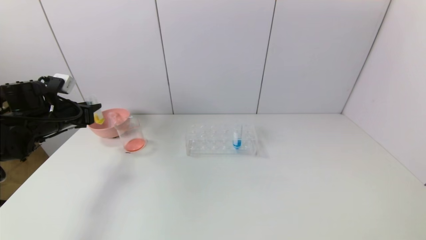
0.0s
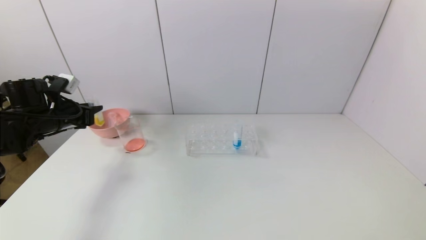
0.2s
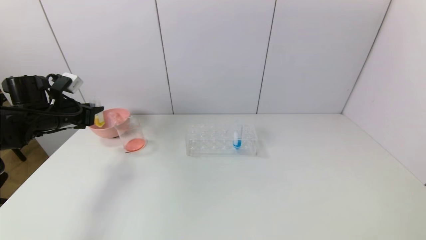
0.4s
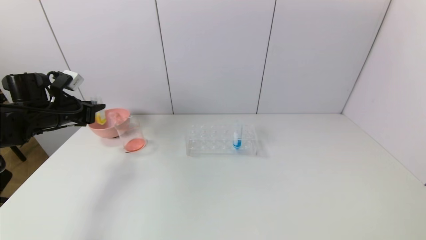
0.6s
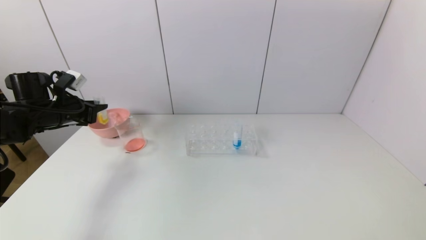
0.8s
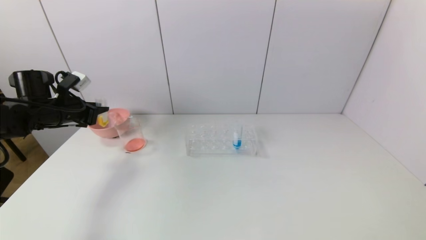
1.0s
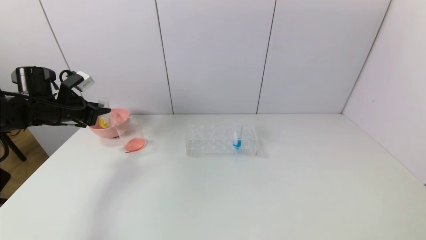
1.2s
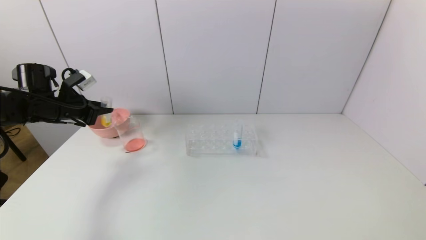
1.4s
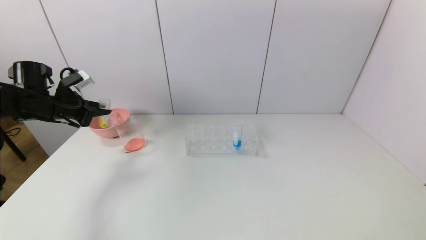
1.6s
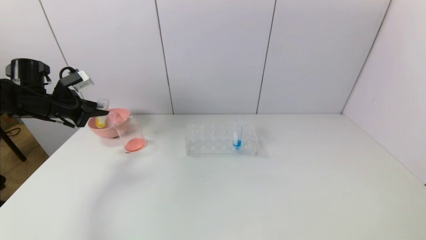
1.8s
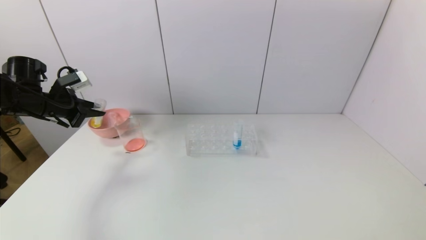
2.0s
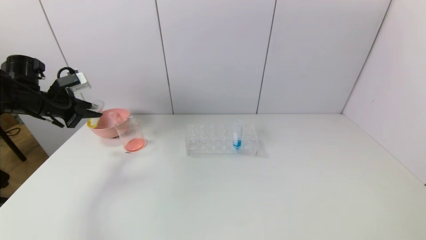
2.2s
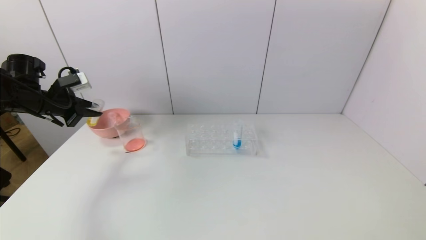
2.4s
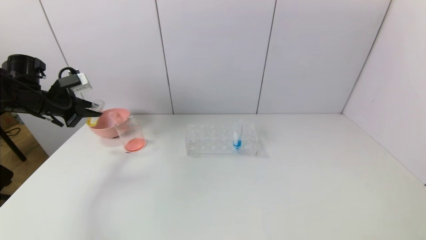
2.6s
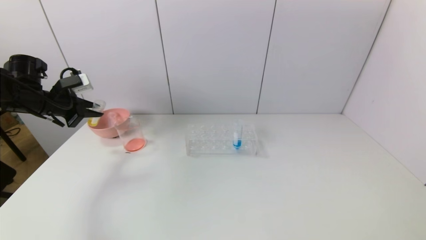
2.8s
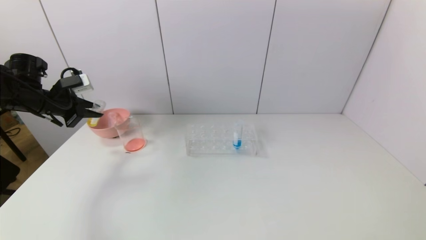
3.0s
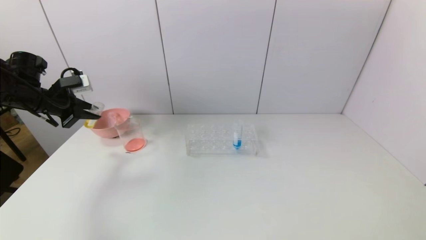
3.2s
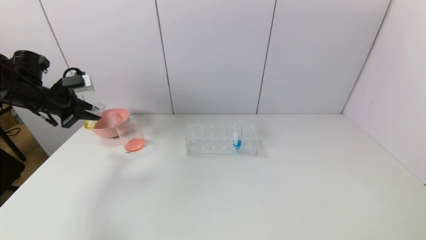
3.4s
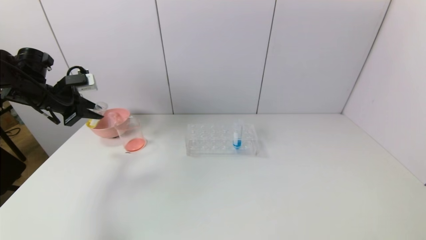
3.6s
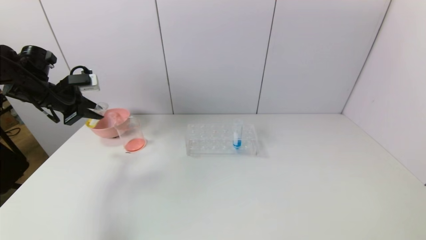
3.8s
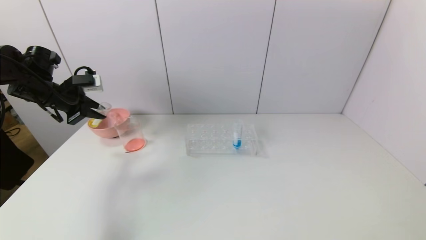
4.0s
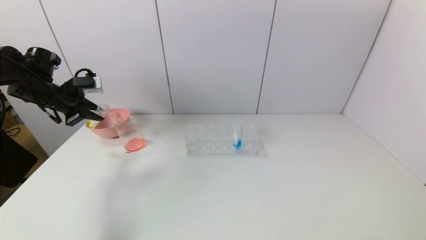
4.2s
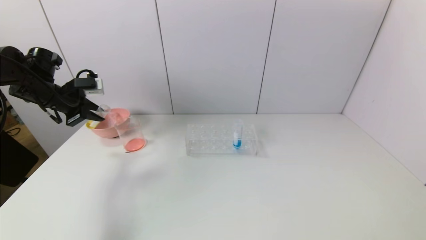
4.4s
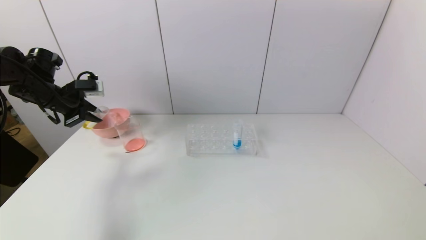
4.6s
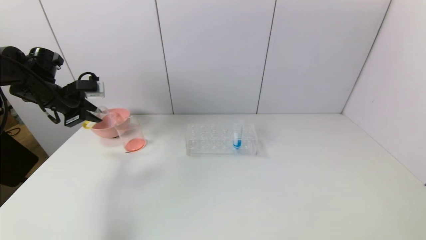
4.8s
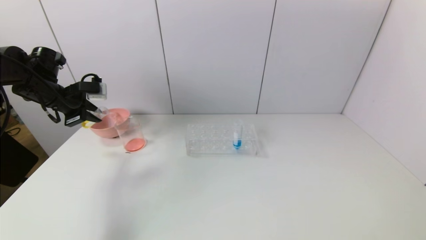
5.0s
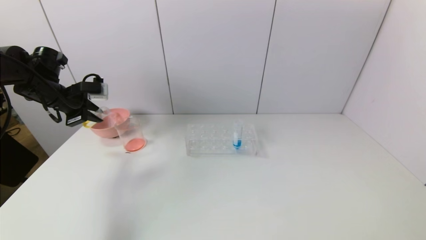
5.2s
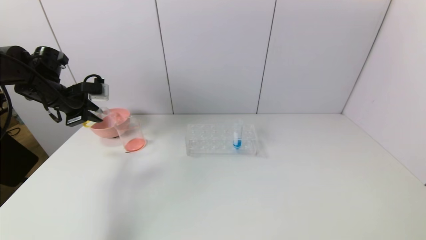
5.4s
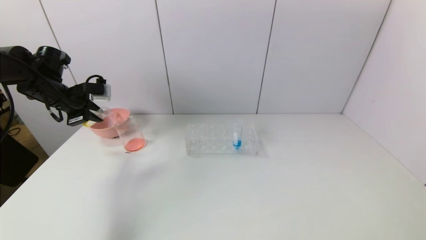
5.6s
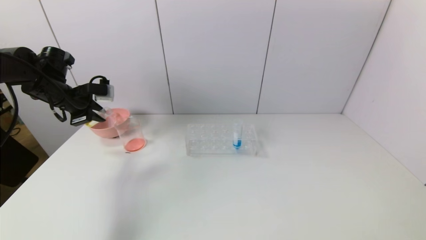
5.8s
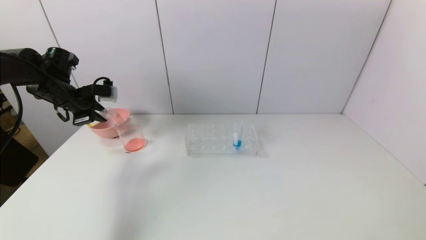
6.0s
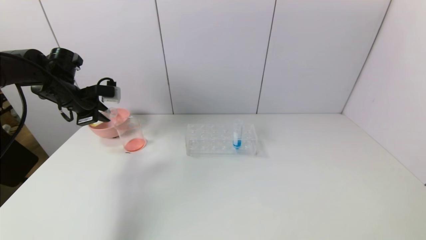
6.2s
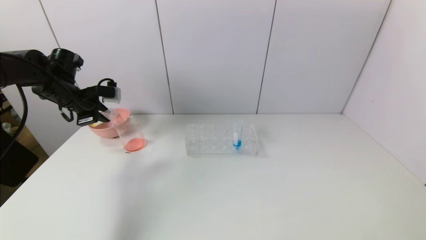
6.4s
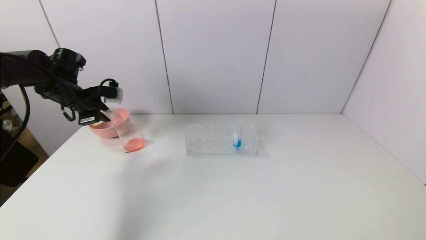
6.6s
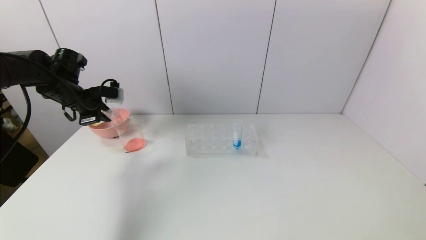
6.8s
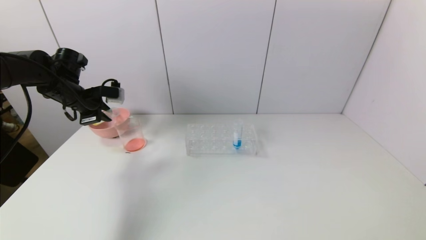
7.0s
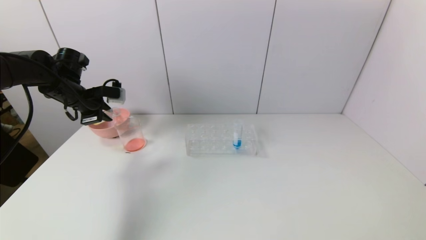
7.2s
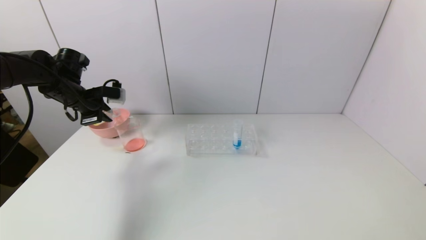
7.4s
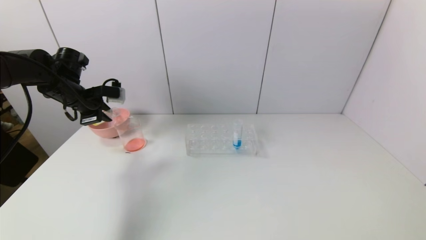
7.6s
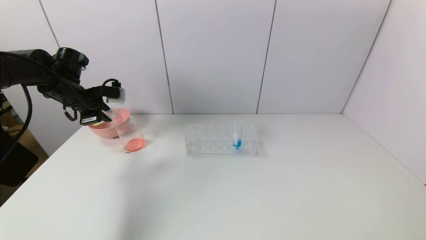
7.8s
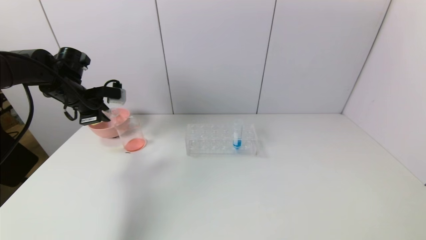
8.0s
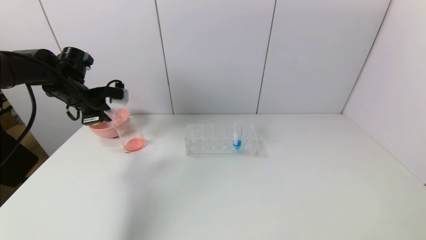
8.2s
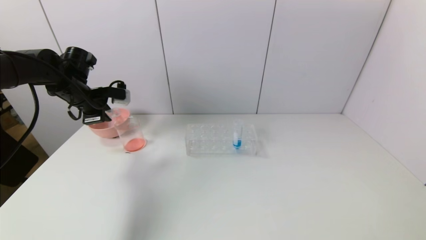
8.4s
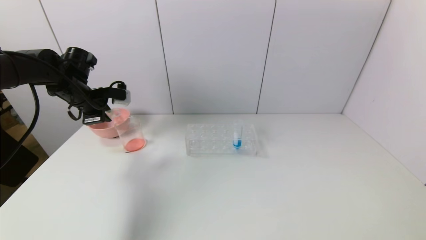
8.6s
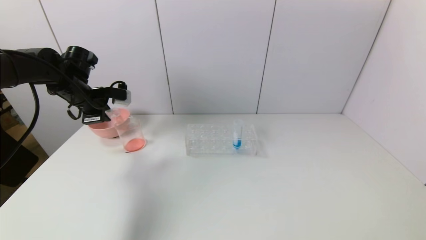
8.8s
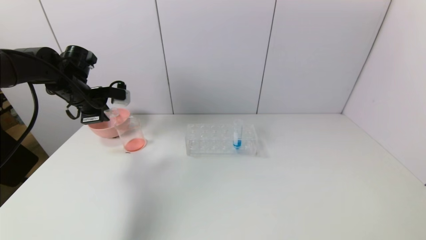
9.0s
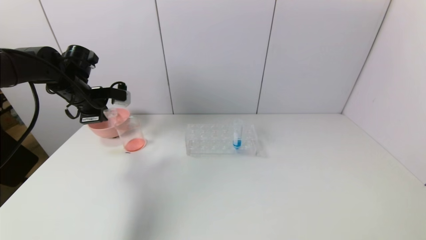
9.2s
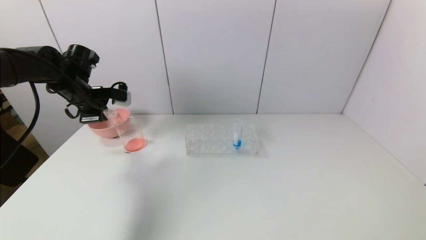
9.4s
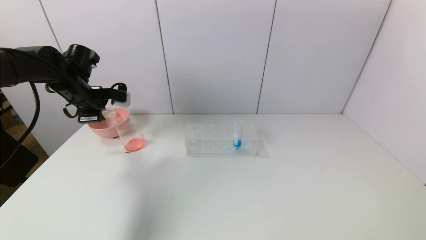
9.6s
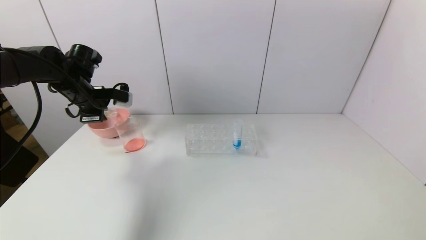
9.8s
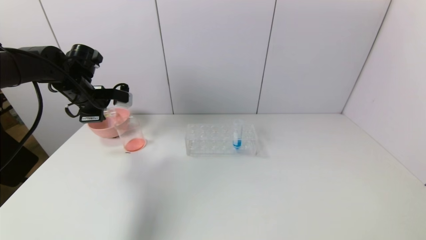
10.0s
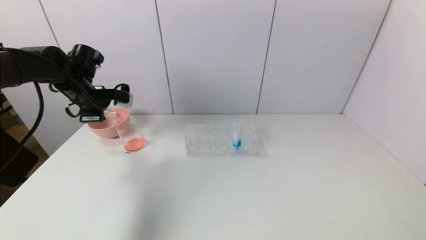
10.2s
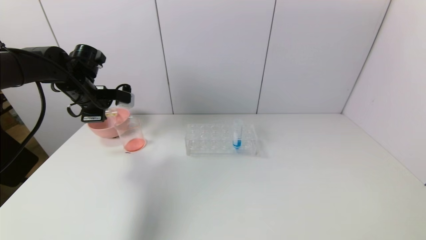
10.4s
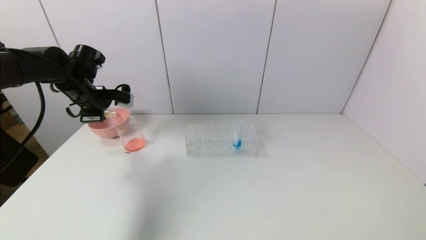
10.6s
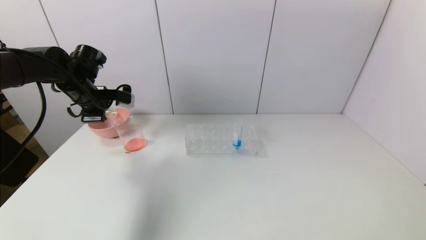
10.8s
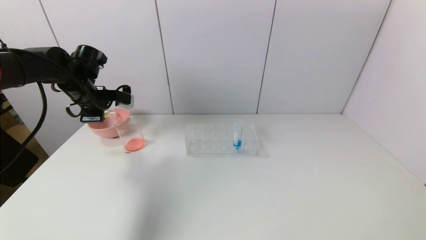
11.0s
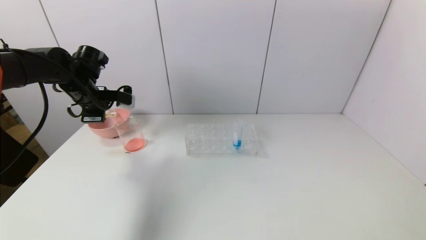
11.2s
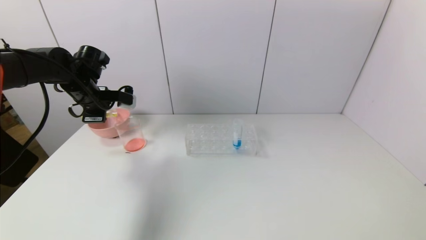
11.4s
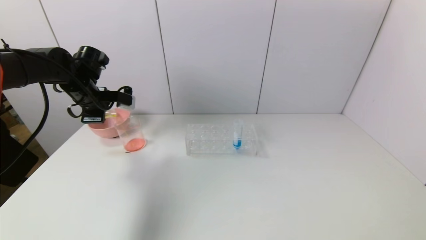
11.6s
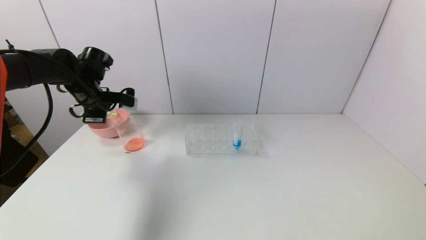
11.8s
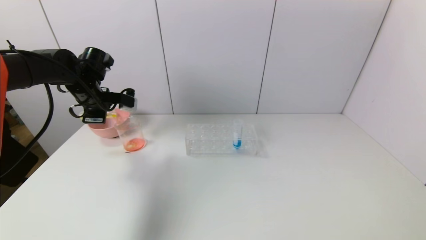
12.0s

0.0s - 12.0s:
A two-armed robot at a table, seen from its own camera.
Task of the whole recording: pick up the test tube with yellow pigment and the test tube with red pigment by grippers and pour them into the beaker.
1.6s - 3.0s: The grippers stay close to where they were, moving slightly.
3.0s - 4.4s: The grippers make only small movements.
4.4s - 7.6s: The grippers make only small movements.
7.6s - 10.4s: There are only small adjustments of the grippers.
10.4s - 12.0s: There are only small adjustments of the grippers.

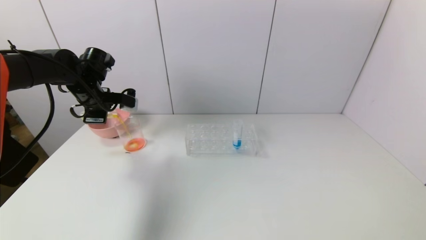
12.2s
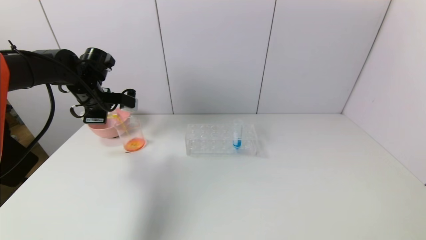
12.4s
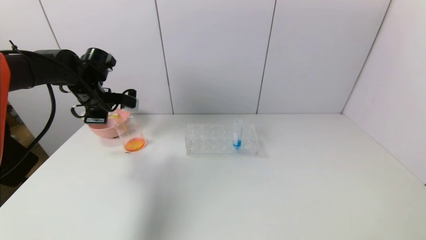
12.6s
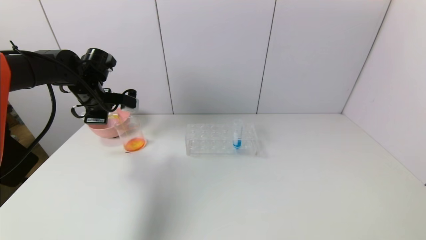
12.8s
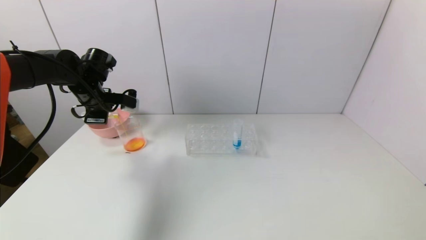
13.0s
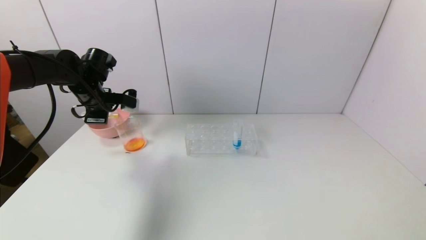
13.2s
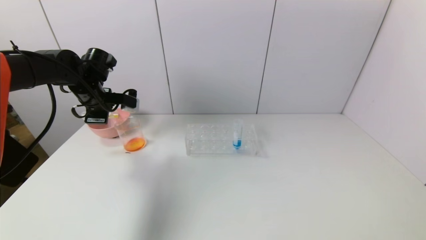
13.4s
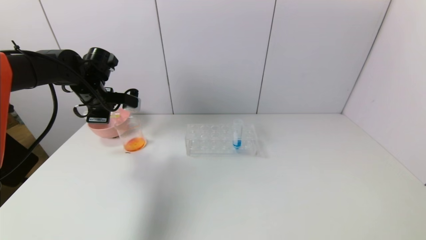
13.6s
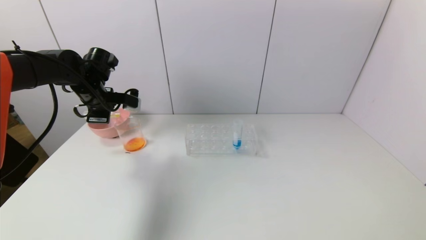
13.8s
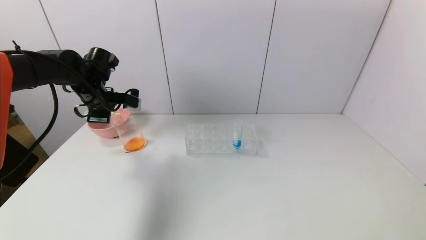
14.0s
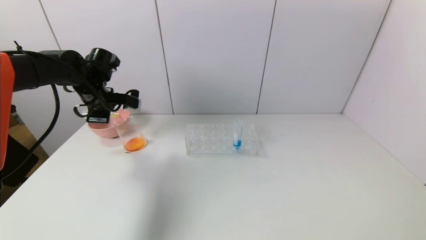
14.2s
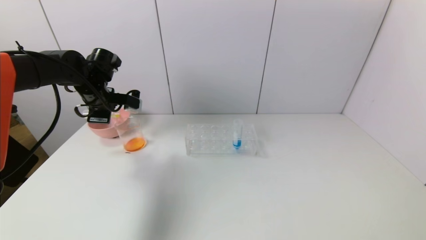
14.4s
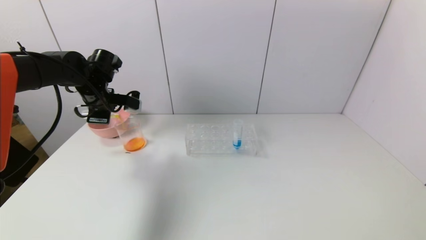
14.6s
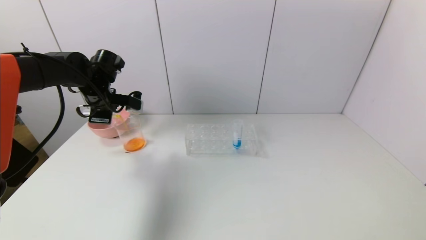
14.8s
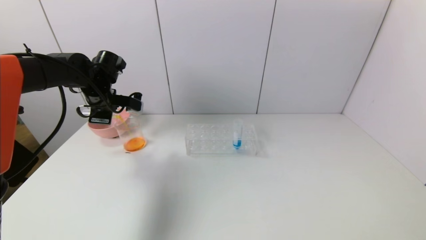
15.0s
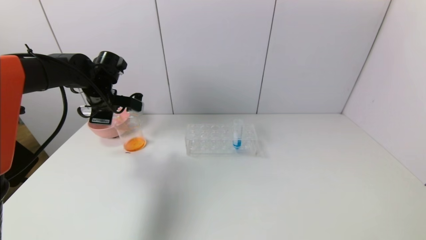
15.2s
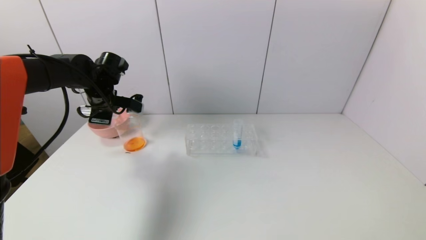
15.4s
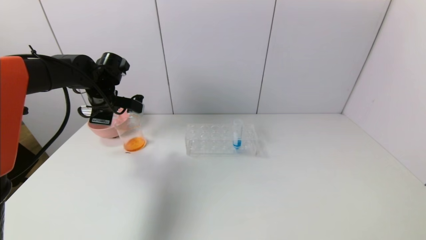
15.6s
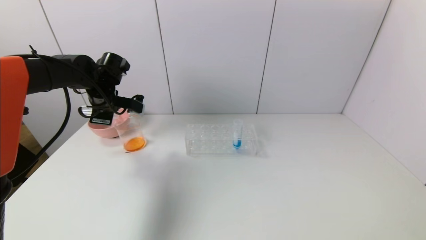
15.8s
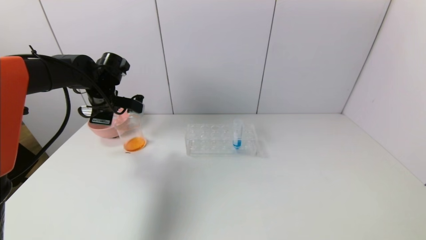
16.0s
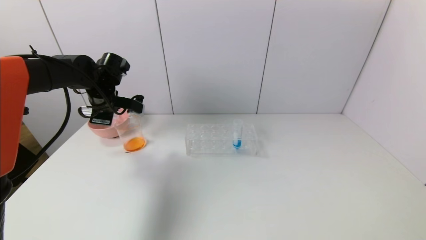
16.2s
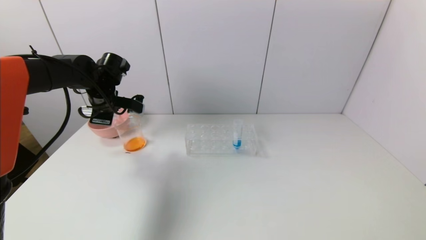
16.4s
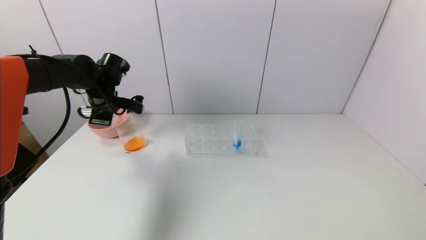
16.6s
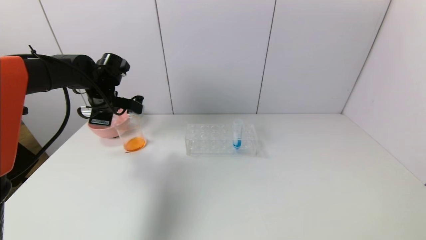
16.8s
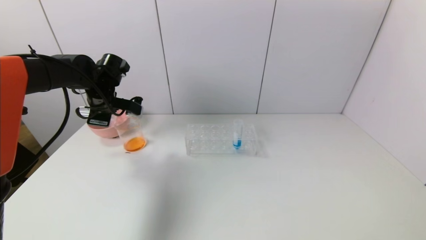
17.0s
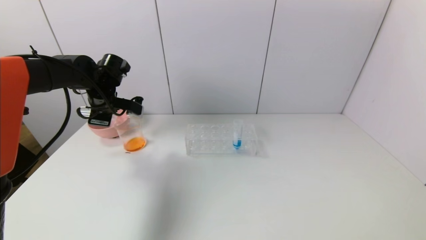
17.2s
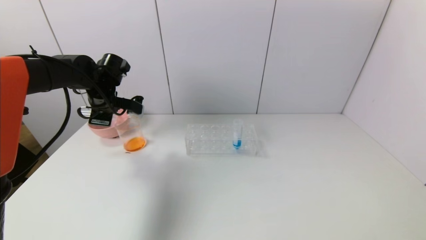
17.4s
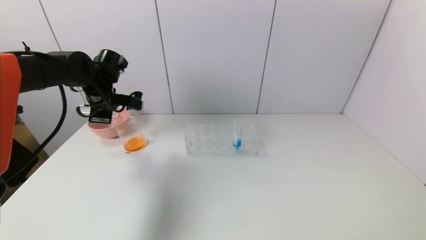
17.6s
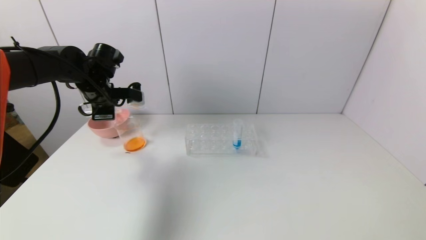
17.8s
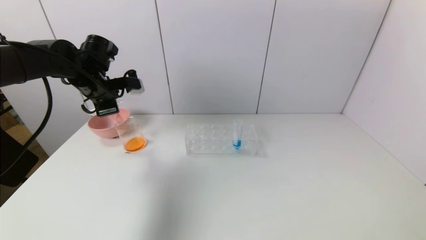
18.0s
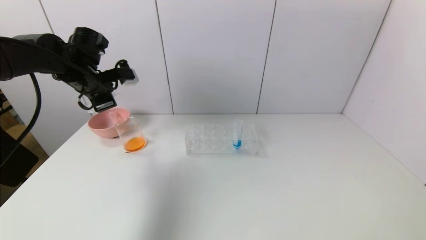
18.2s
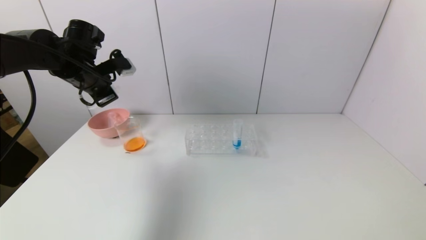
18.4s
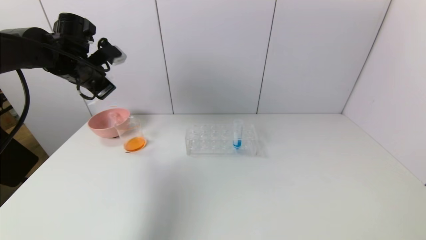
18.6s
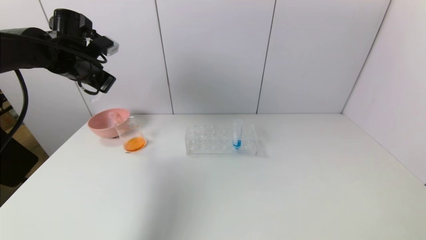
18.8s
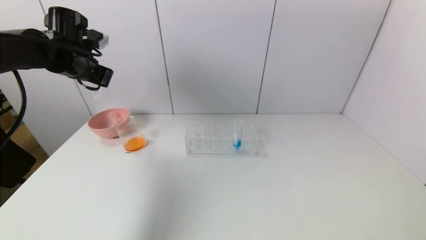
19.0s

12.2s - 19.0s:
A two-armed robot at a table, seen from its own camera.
Task of the whole recording: pick up the test tube with yellow pigment and the test tube with red pigment by grippers and pour them into the beaker.
Step, 12.2s - 16.2s: Pour the yellow reagent into the graduated cylinder with the left gripper.
12.2s - 13.6s: Neither gripper changes place.
13.6s - 15.0s: The grippers move only a little.
15.0s - 16.2s: Neither gripper changes place.
16.2s - 17.6s: There are only small adjustments of the grippers.
17.6s - 19.0s: The left gripper moves upward, about 5 cm.
